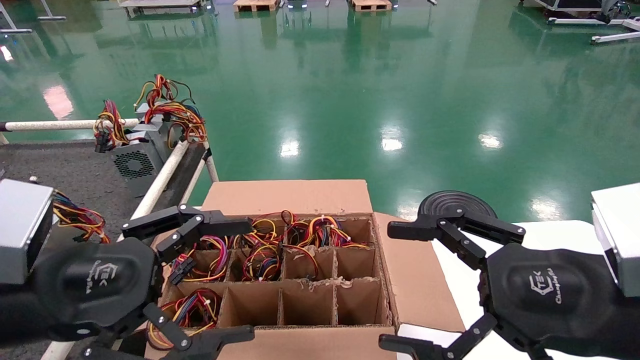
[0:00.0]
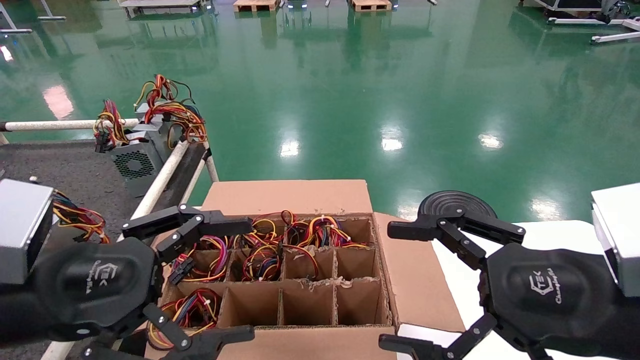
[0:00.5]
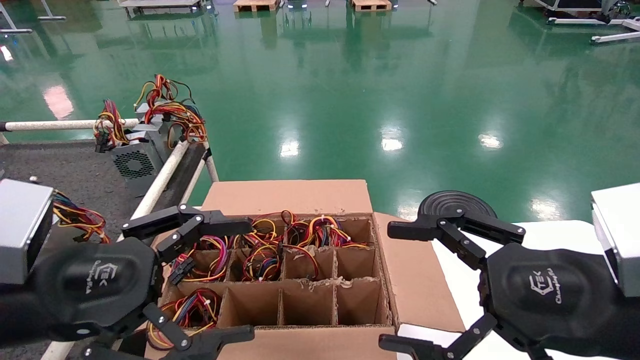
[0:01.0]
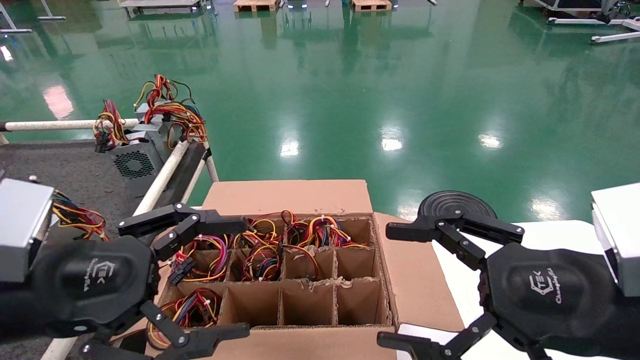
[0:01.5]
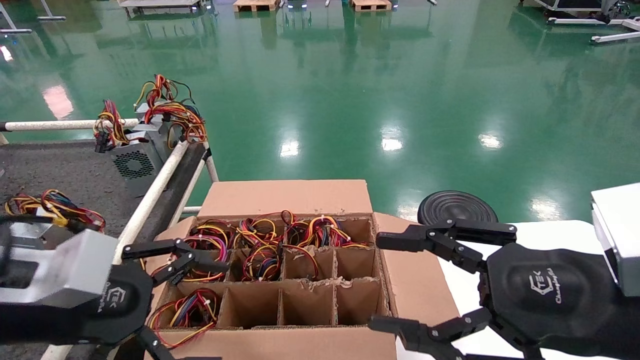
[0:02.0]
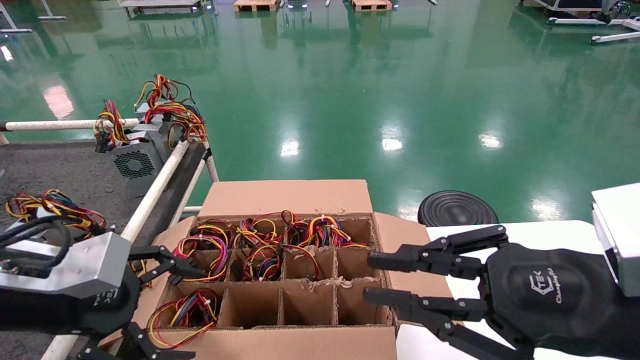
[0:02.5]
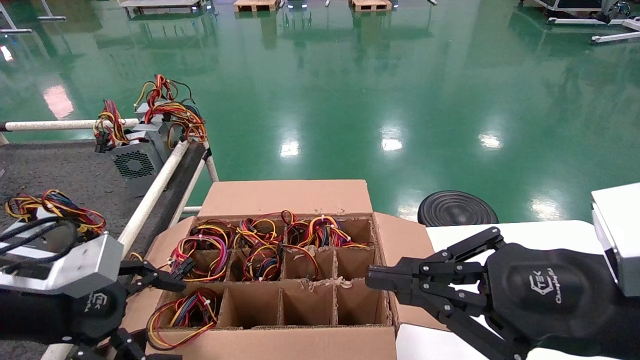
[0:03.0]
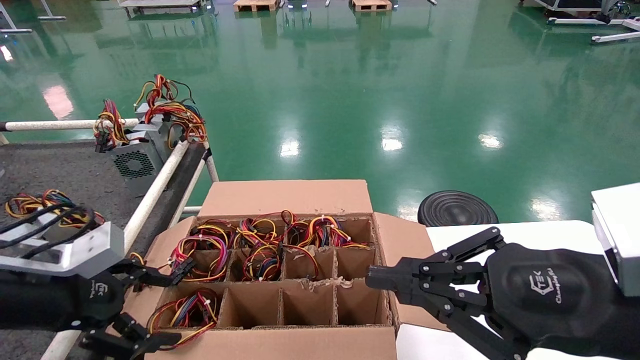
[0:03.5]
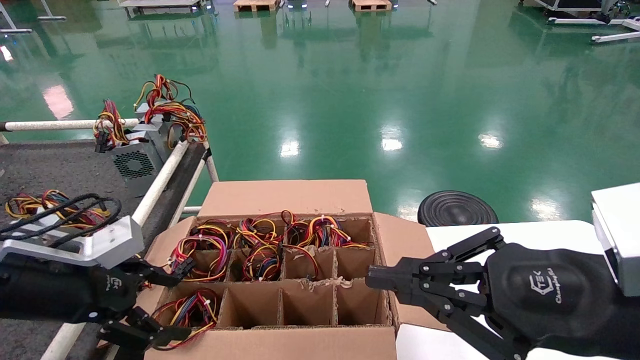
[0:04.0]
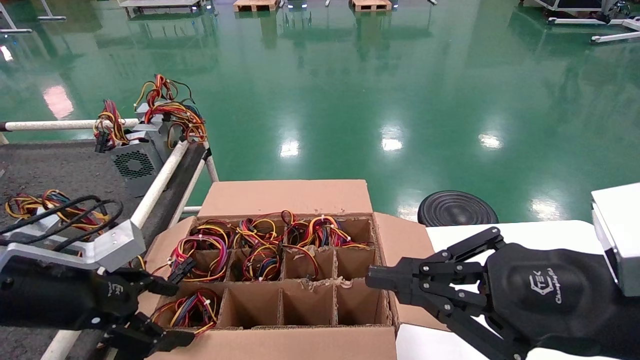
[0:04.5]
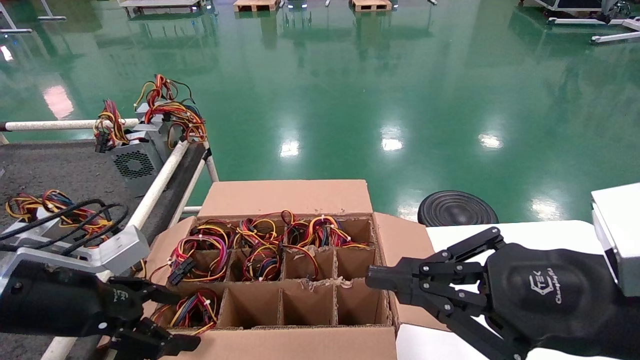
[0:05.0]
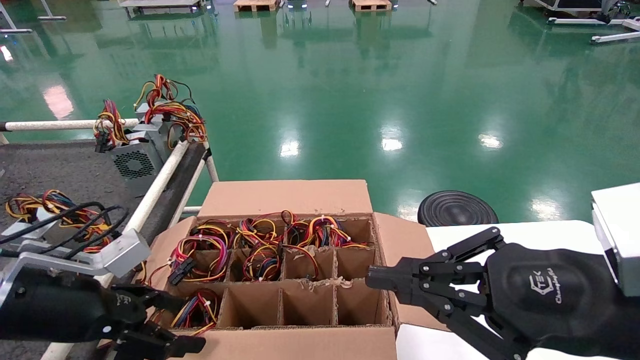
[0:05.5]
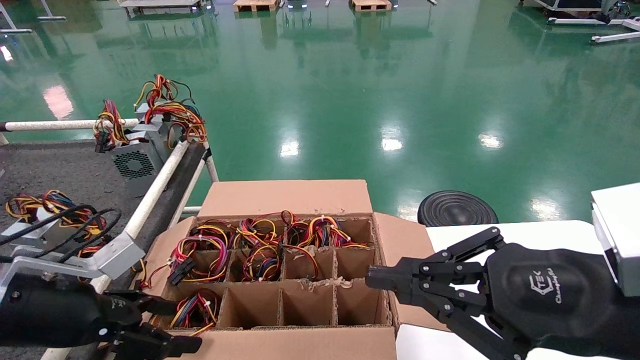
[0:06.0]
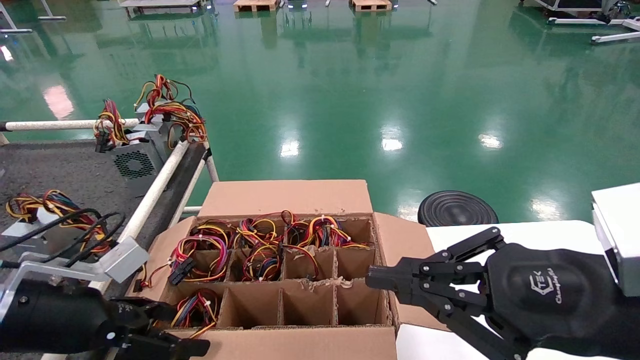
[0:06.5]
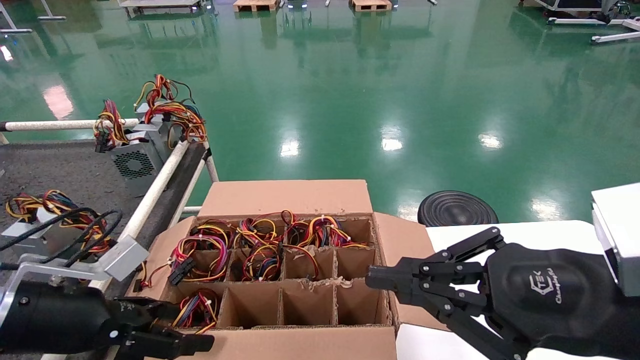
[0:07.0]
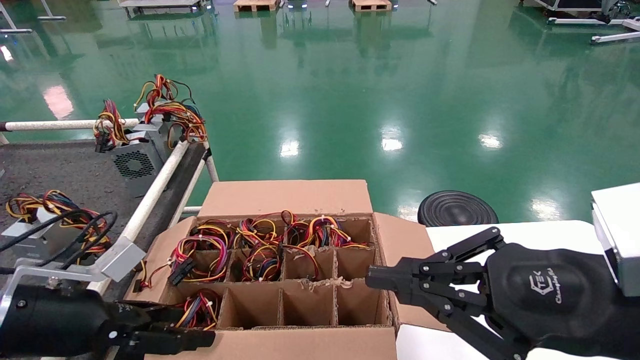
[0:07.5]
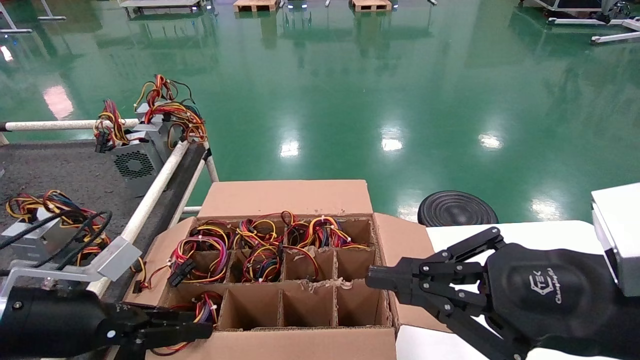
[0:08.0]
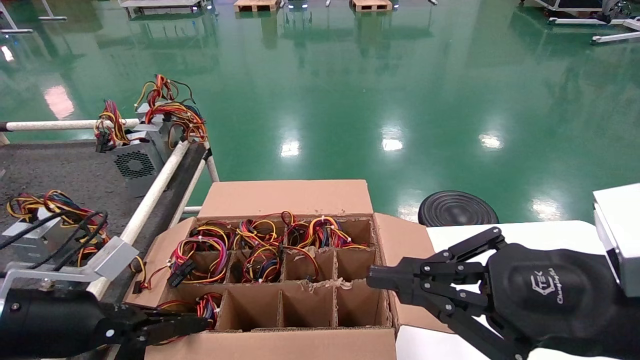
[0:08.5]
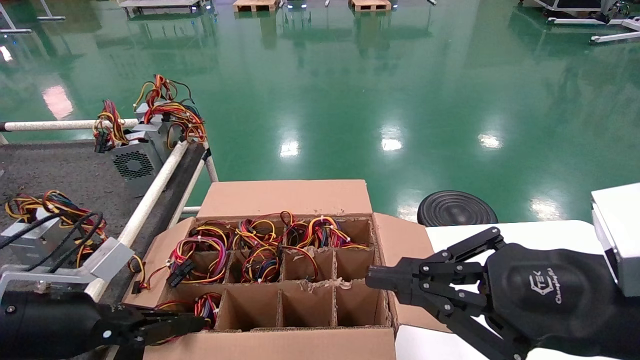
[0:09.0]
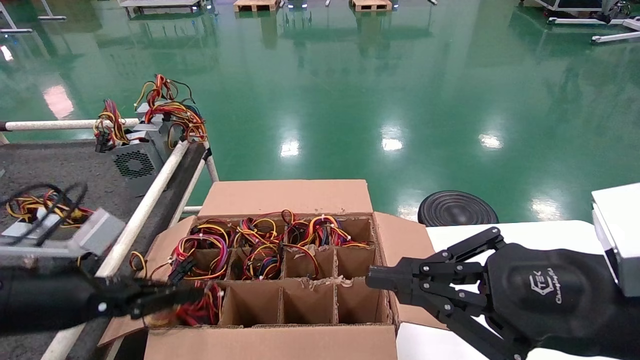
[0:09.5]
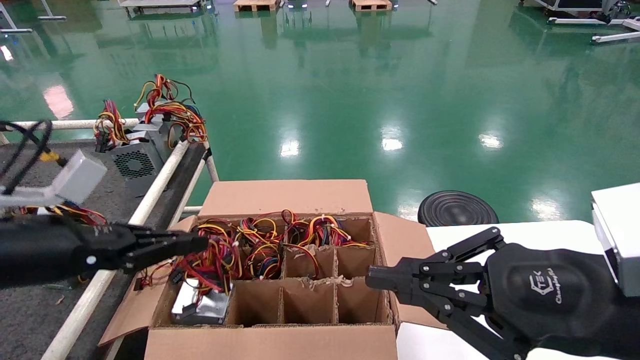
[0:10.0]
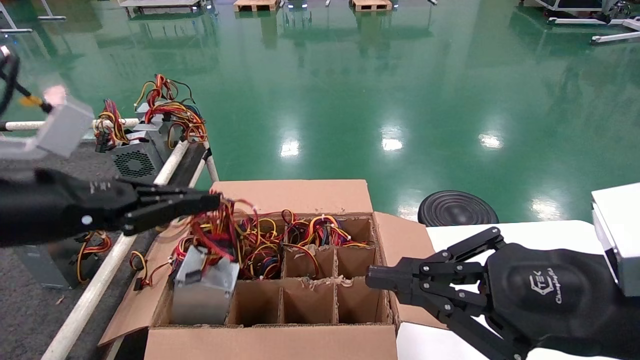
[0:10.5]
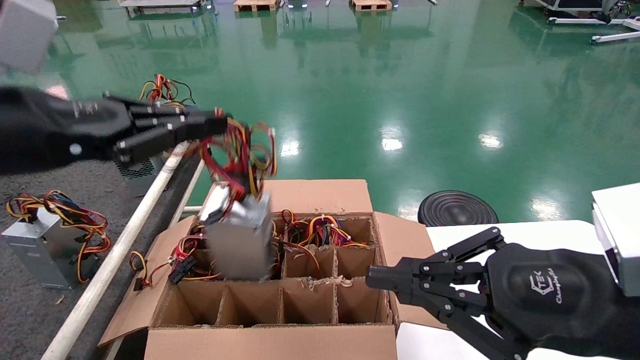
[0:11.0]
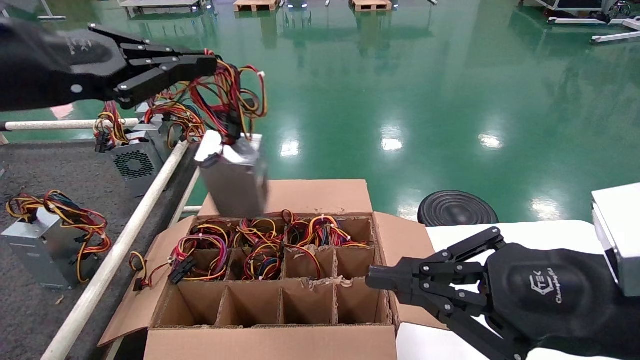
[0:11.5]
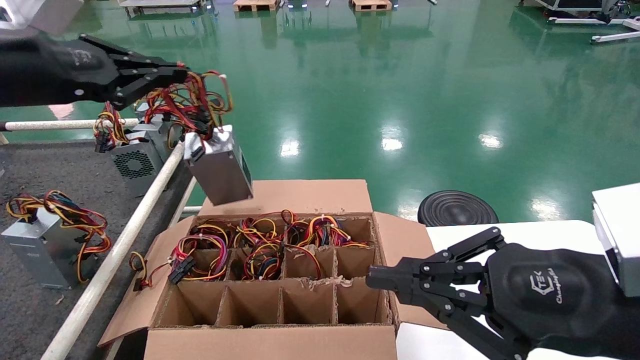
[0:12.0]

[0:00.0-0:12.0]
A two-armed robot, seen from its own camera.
Step, 0:02.0 to 0:08.0: Grab and lift the power supply from the large box.
0:02.0 to 0:04.0: The right gripper closes its fingers. The left gripper is displaced forward by approximately 5 cm.
0:04.0 to 0:06.0: There are only small adjustments of the grippers.
0:06.0 to 0:08.0: The left gripper closes up.
0:08.0 to 0:10.0: The left gripper moves upward, about 10 cm, and closes up.
0:10.0 to 0:12.0: The left gripper goes about 15 cm upward.

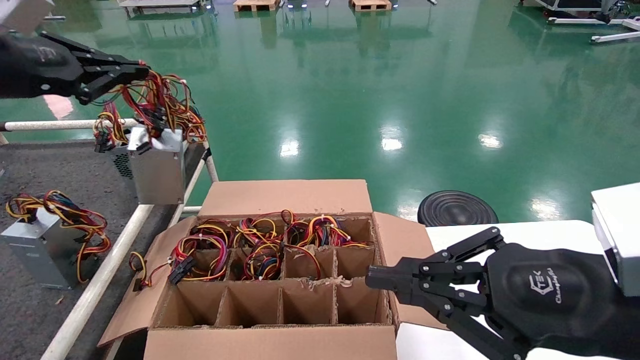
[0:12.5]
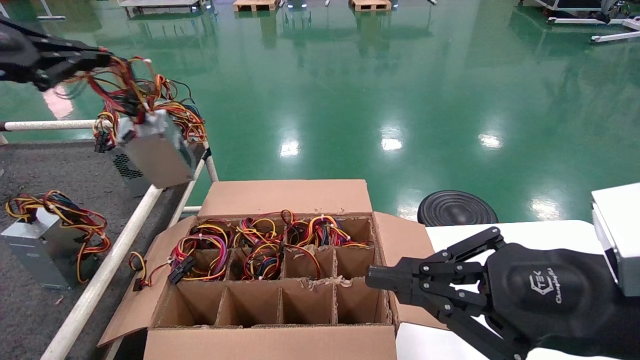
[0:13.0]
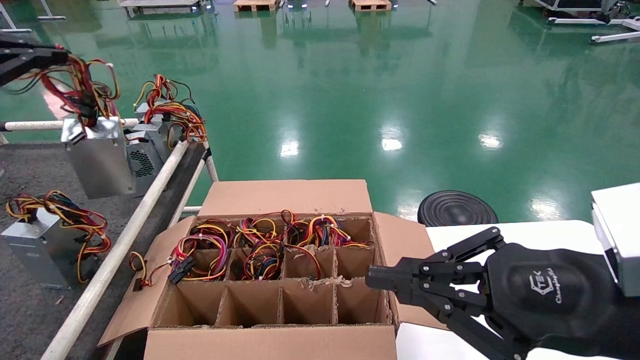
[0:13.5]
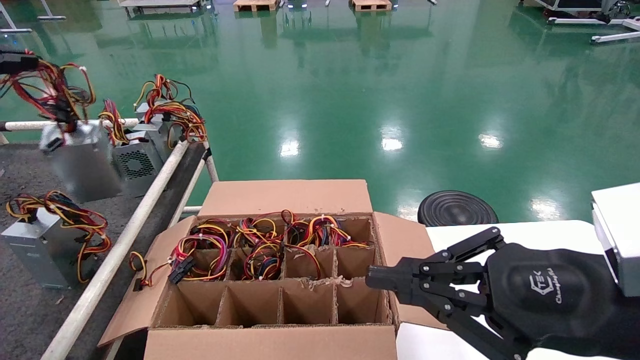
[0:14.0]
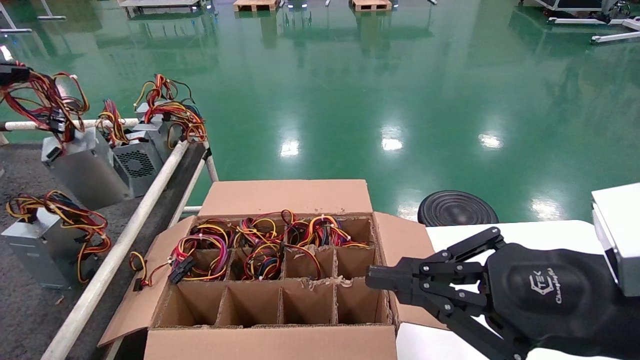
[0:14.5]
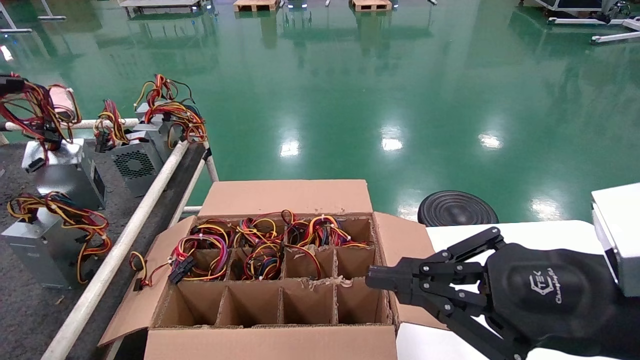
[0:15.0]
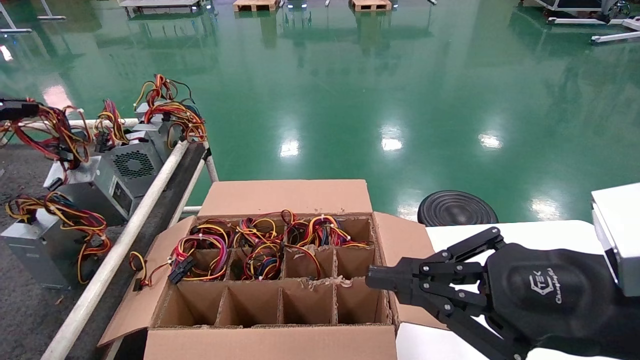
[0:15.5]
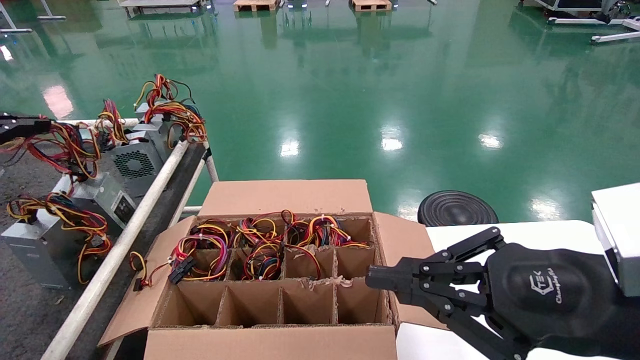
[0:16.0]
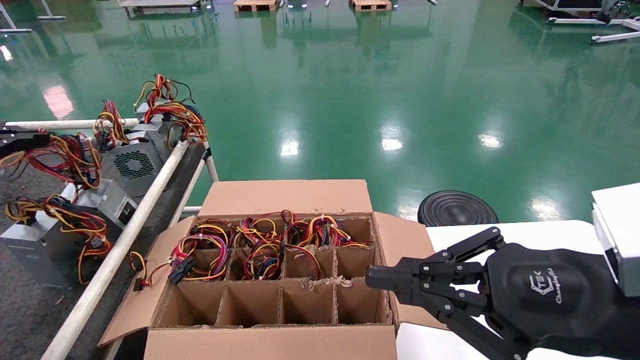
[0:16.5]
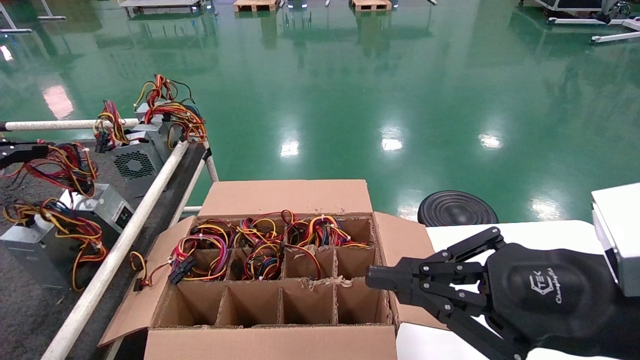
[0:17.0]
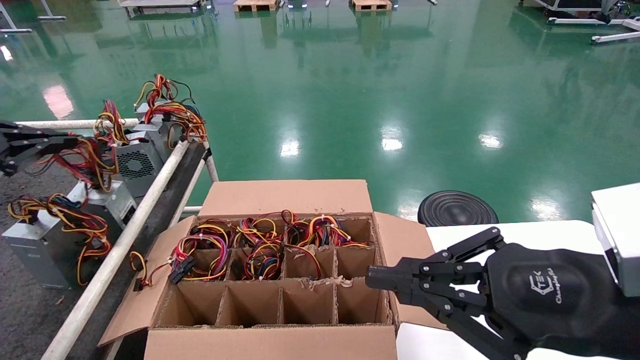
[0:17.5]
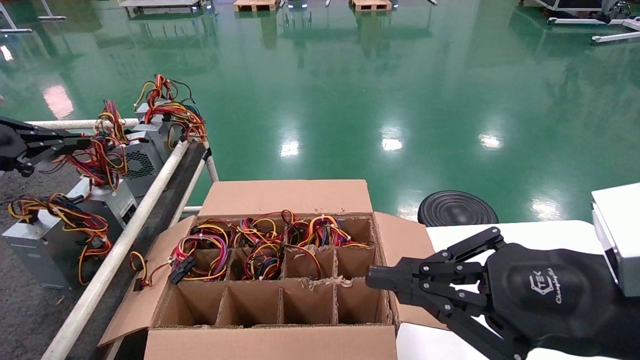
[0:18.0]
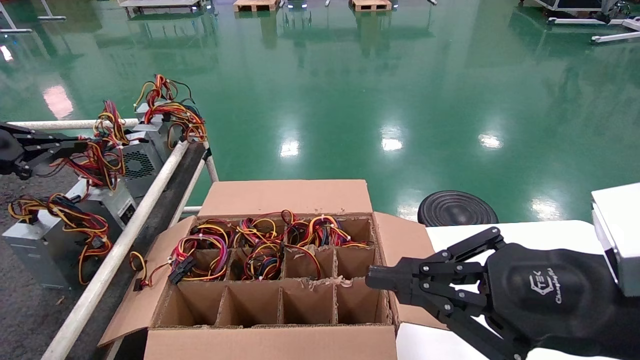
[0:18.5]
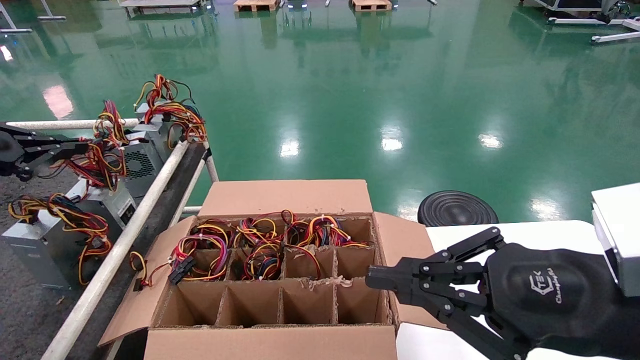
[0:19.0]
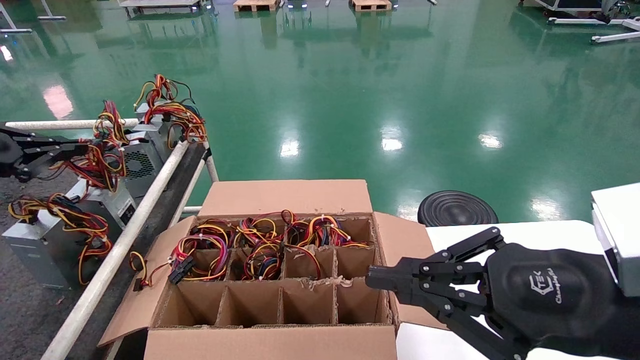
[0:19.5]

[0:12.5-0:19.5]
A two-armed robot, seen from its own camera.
Step, 0:12.5 to 0:19.5: Place the power supply on the operating table.
0:12.5 to 0:14.5: The left gripper is displaced to the left by some 15 cm.
0:14.5 to 0:16.0: The left gripper moves downward, some 5 cm.
0:16.0 to 0:19.5: The grippers move only a little.
